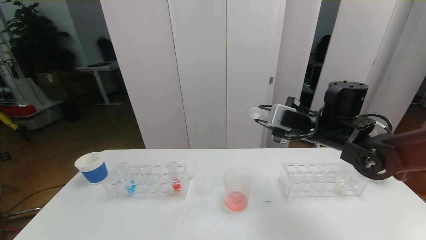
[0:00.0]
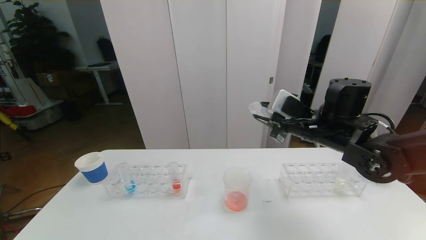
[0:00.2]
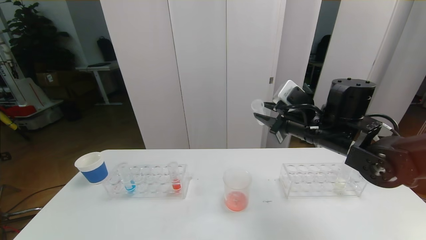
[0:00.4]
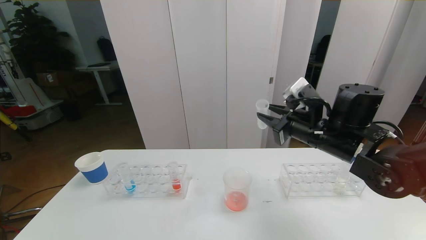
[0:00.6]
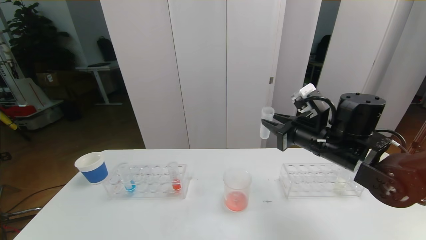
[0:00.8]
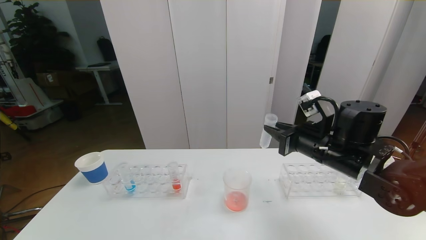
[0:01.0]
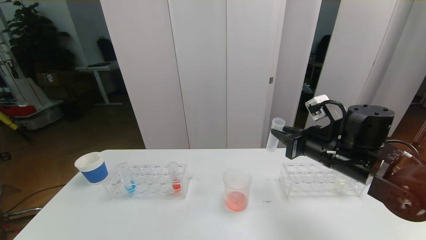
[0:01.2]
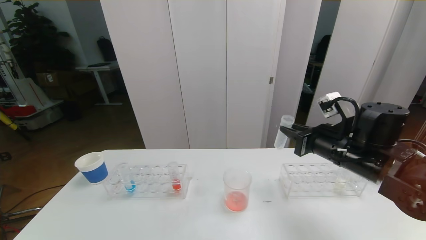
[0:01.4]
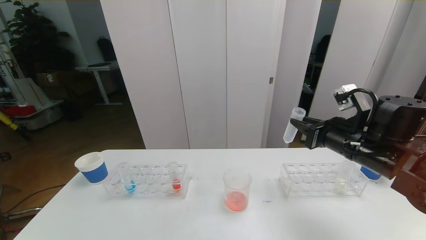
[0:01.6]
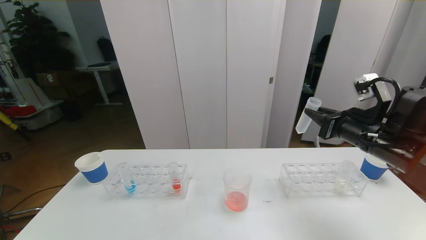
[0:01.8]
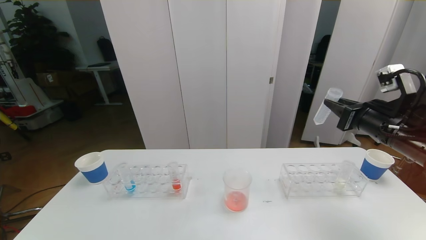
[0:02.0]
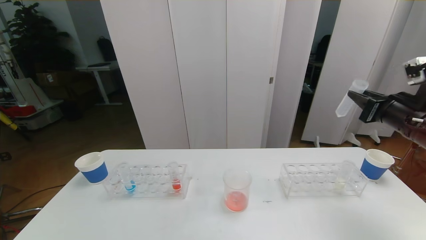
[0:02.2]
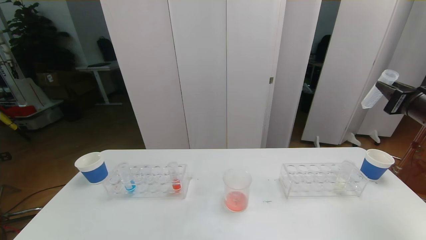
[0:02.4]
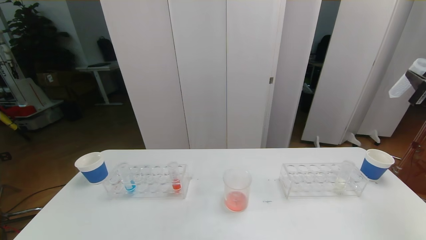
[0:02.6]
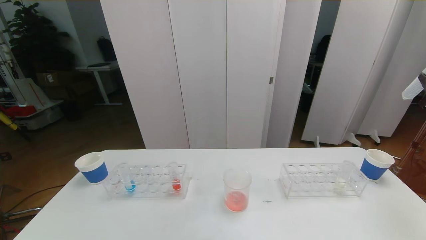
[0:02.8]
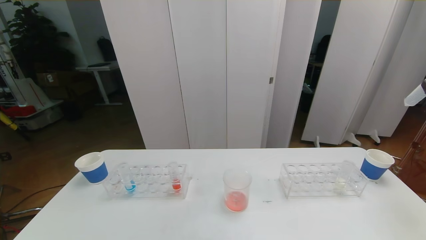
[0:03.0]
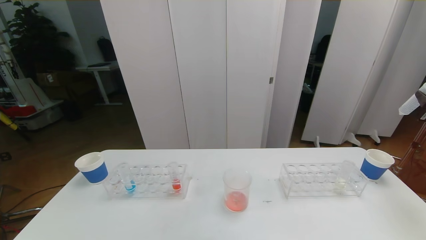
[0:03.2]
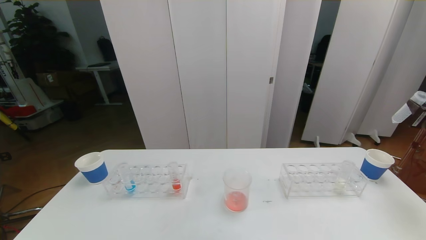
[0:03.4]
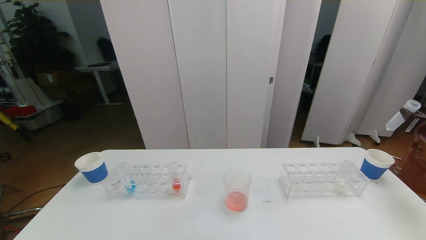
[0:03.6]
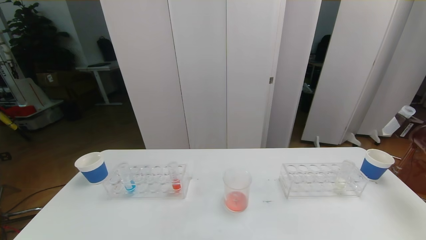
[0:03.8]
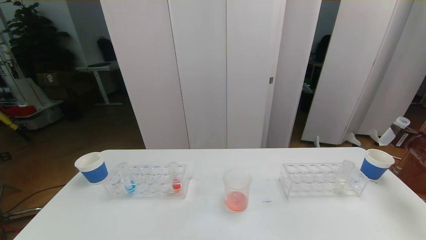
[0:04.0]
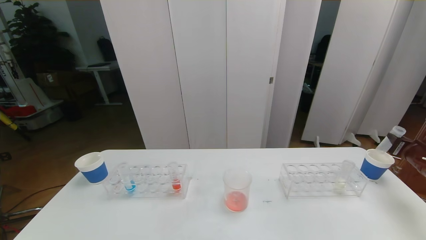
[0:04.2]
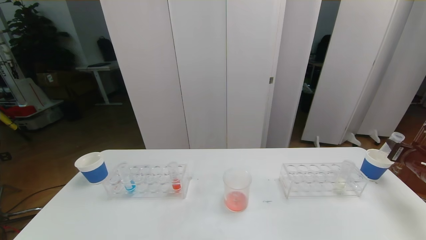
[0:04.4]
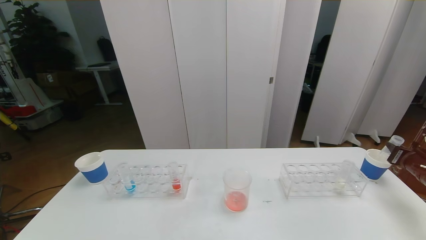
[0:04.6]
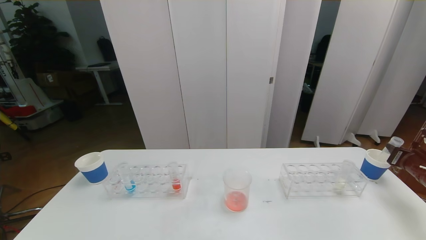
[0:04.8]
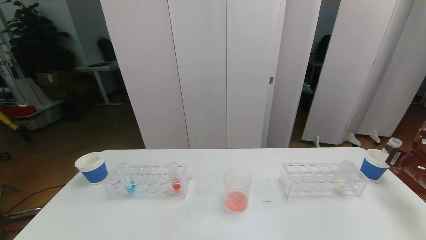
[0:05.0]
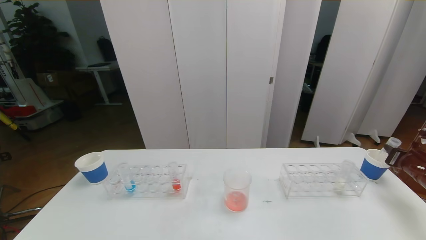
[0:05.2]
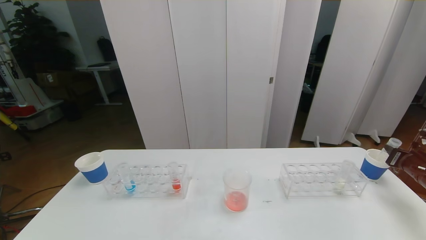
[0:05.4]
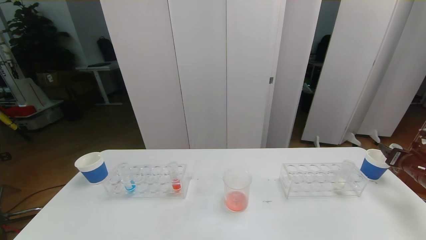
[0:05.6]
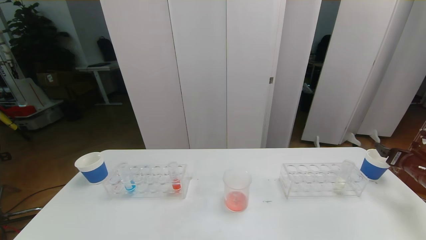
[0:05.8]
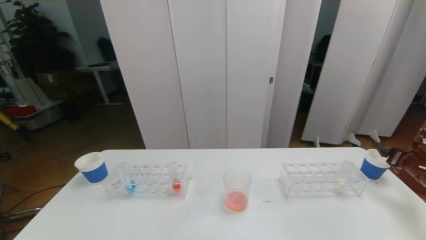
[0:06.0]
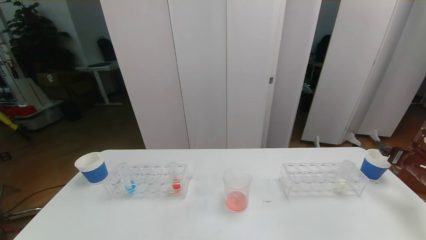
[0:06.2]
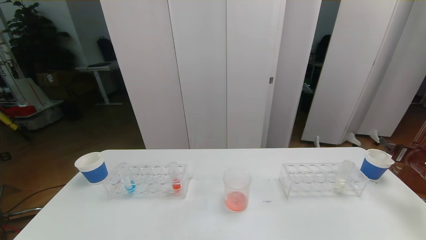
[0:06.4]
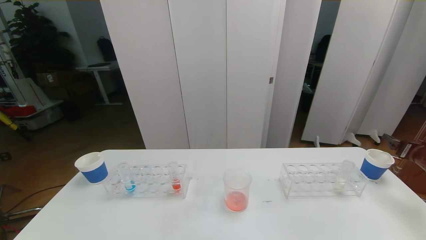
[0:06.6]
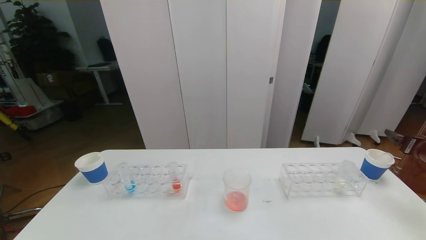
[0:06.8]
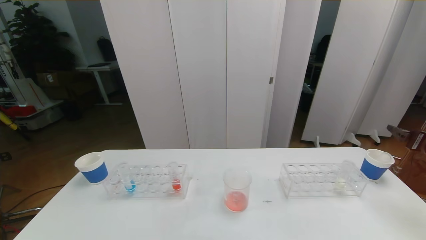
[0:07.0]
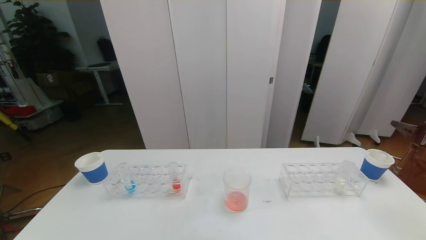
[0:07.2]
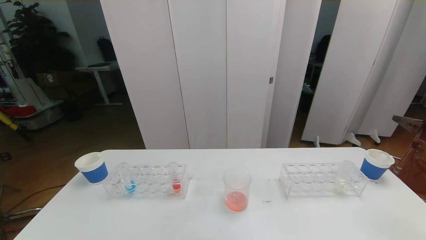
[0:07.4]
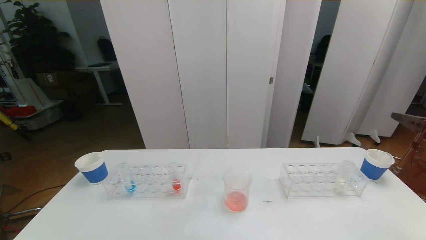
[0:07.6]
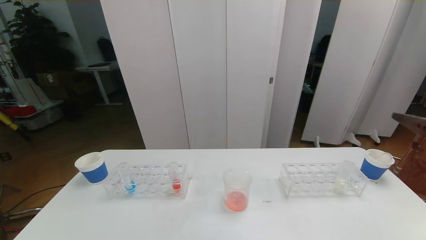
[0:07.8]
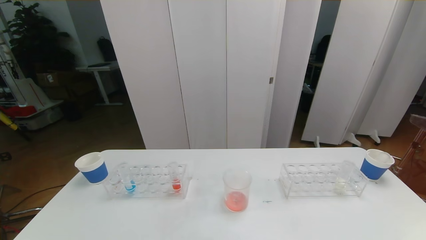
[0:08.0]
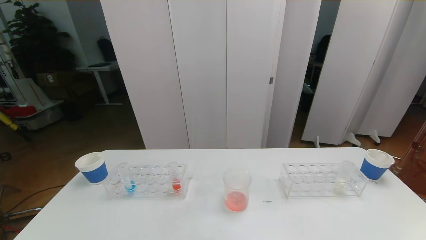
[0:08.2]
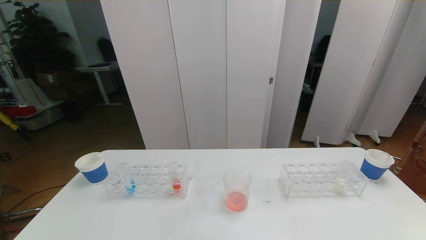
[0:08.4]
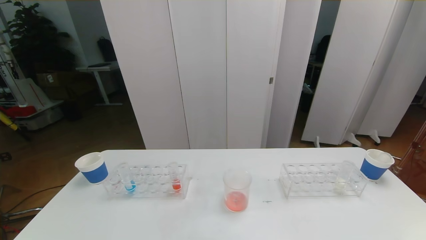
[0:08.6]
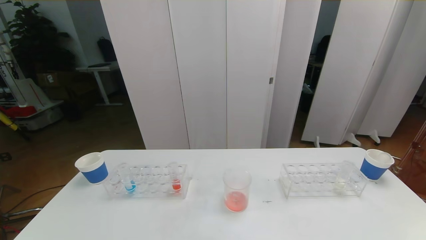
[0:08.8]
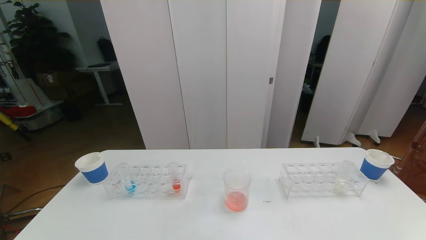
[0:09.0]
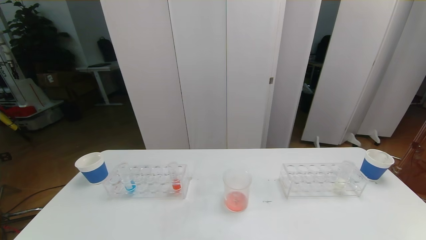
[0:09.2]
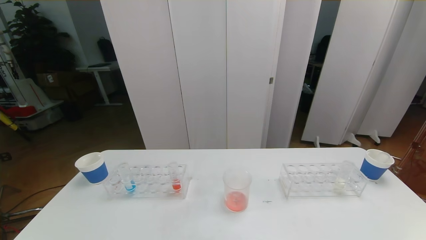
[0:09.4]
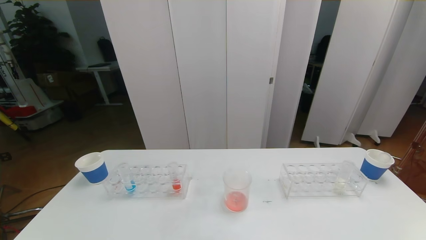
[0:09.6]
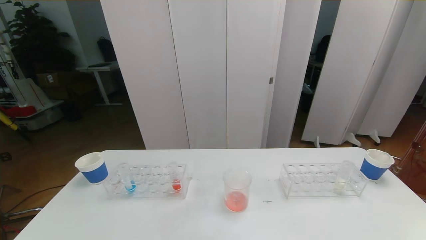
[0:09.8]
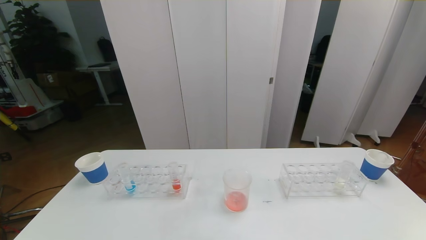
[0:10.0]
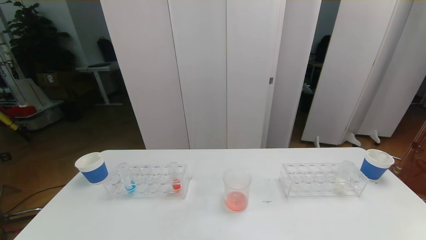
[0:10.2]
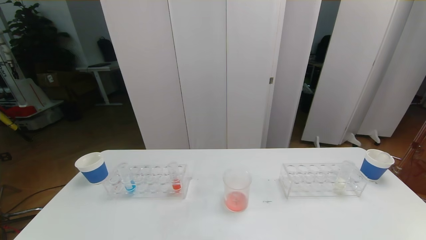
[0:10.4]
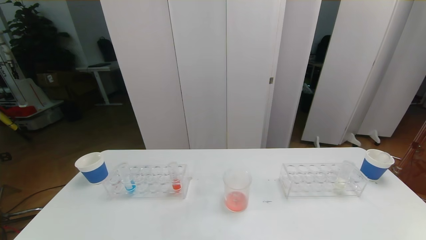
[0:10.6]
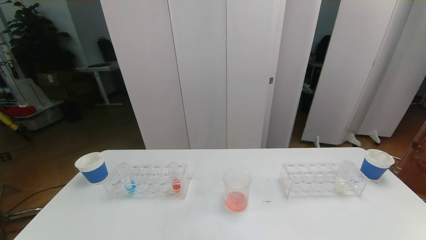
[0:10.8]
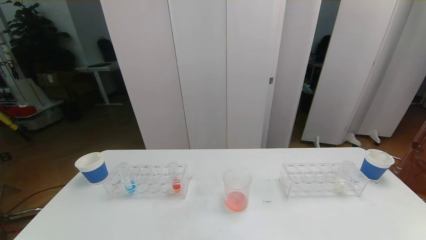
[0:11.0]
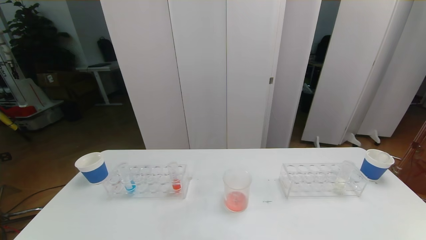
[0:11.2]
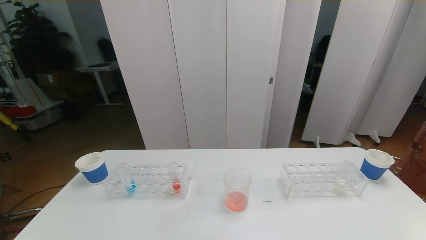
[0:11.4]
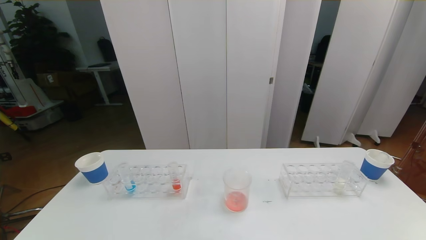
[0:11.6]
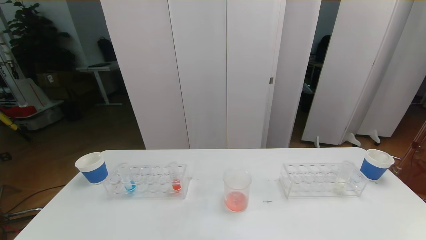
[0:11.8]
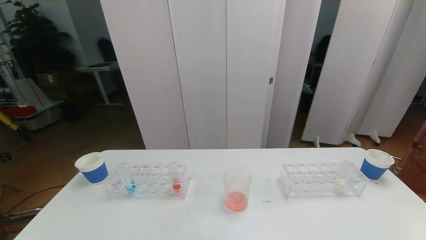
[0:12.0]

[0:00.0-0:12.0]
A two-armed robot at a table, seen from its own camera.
Task of the whole recording: pick up the test tube with red pigment the test tube with blue pigment and the test tube with white pigment by grippers and pour them into the beaker.
Step, 0:00.0 to 0:11.0: Pour the red reagent into the graduated cylinder and place the test tube into the paper cup.
0:00.0 to 0:01.6: The right gripper shifts some 10 cm to the right and backward.
0:01.6 to 0:03.0: The right gripper goes roughly 20 cm to the right.
0:03.0 to 0:04.4: The right gripper travels downward by about 15 cm.
0:04.4 to 0:06.0: The right gripper opens.
0:06.0 to 0:07.6: The right gripper heads upward, backward and to the left, covering some 20 cm.
0:10.4 to 0:12.0: The two grippers keep their place.

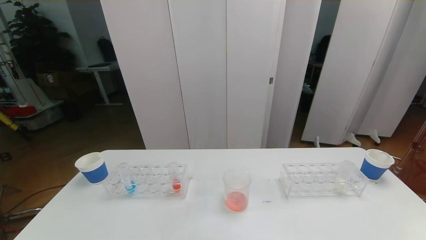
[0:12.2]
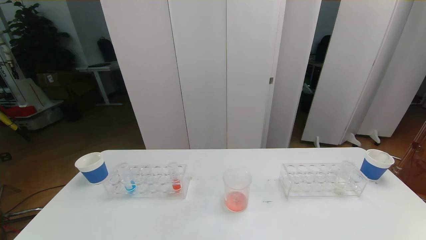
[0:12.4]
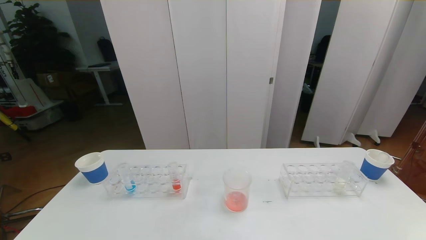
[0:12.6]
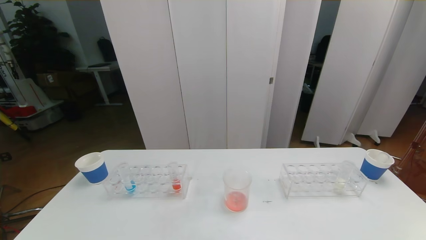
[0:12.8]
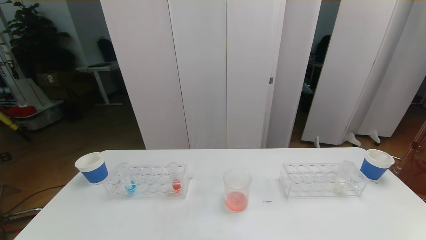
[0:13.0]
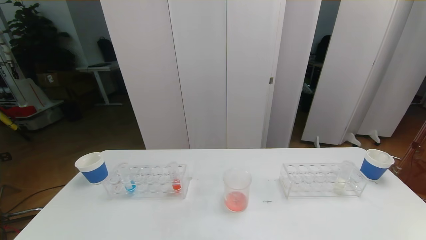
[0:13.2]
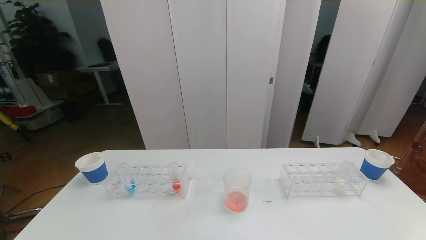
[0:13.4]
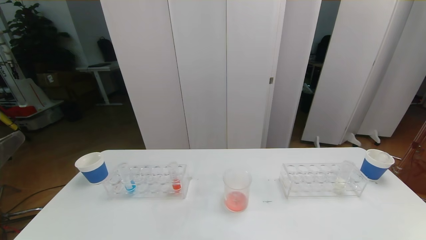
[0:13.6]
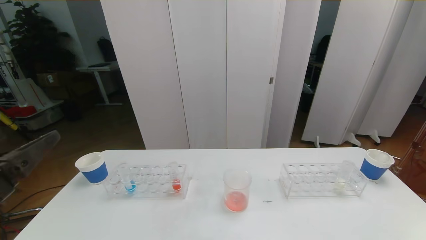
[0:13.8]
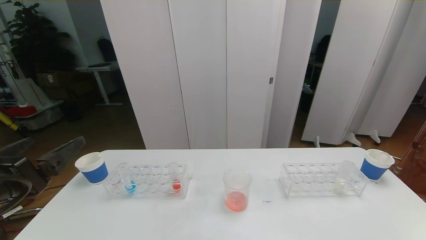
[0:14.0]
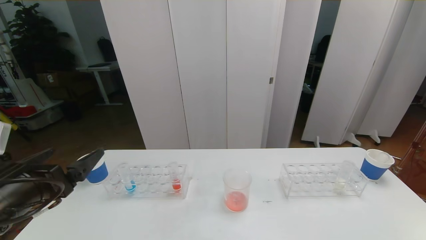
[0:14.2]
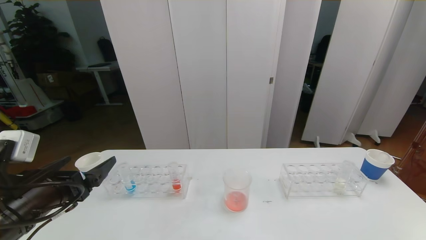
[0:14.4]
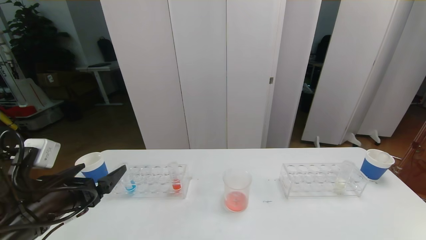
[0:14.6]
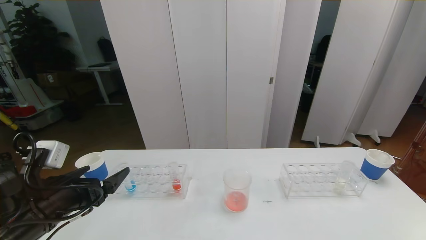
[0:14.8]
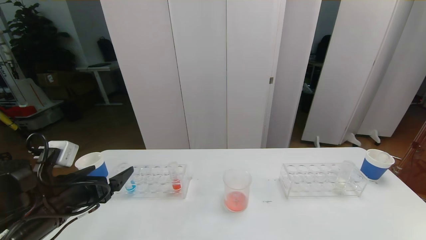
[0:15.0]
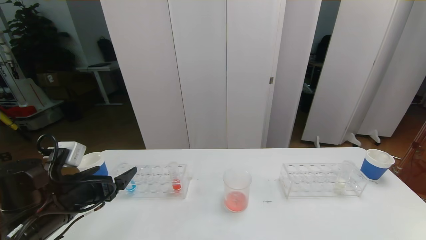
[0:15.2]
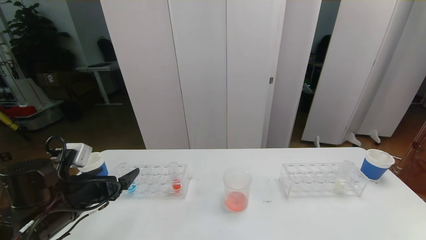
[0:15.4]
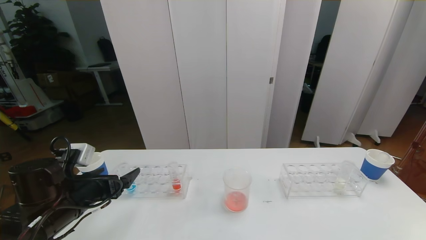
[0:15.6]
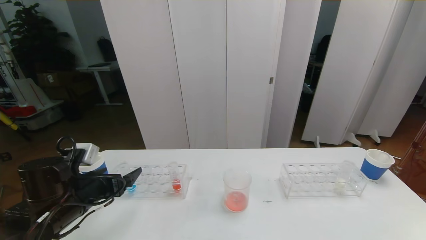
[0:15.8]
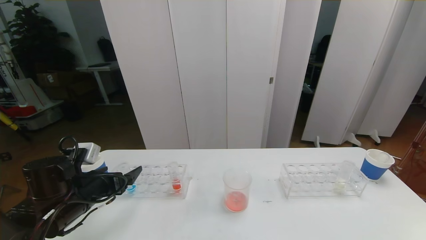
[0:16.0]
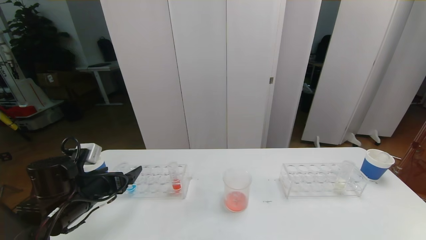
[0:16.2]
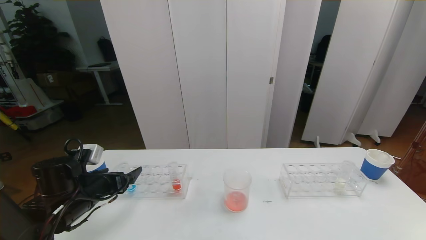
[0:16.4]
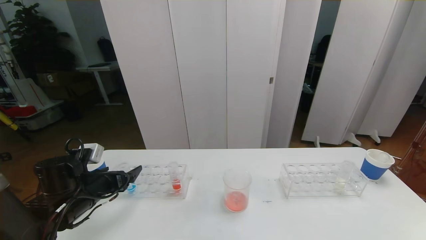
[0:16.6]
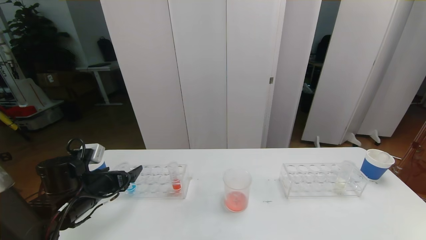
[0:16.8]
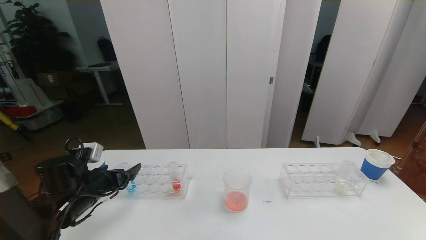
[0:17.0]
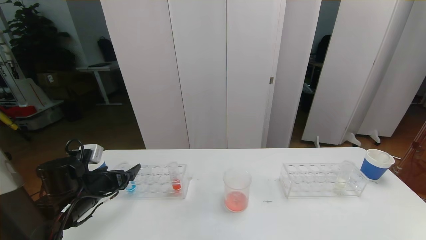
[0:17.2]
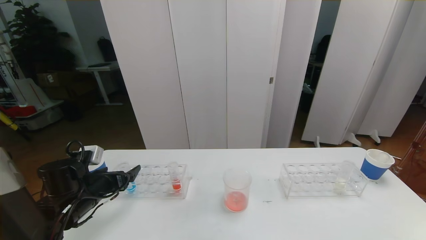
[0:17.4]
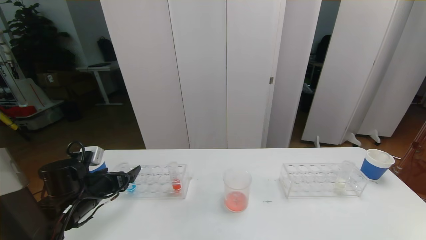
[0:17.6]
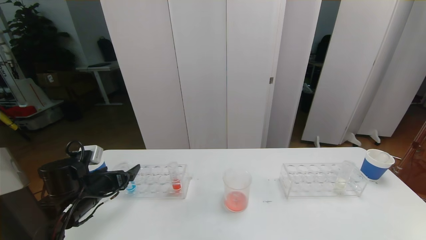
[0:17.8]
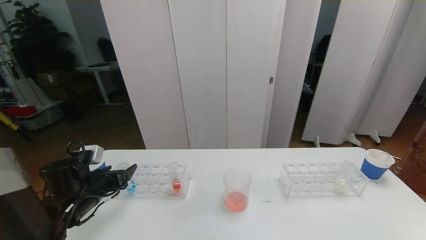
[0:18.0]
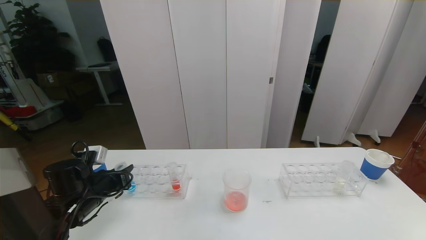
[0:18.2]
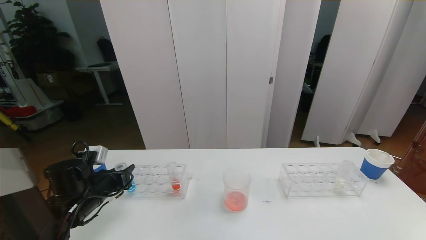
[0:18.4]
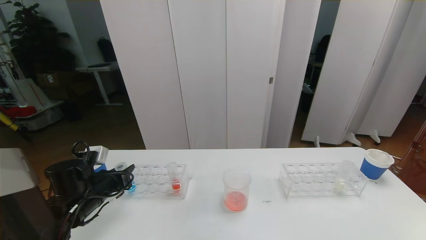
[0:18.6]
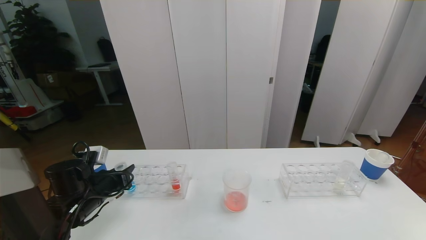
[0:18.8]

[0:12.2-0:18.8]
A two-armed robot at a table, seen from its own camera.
Task of the whole recording: pick up the test tube with red pigment the test tube with blue pigment and the test tube with white pigment by grippers and pour them into the beaker.
0:13.8 to 0:15.4: The left gripper is displaced downward and forward by some 20 cm.
0:15.4 to 0:17.2: The left gripper heads forward, covering roughly 5 cm.
0:17.2 to 0:18.8: The left gripper closes up.
